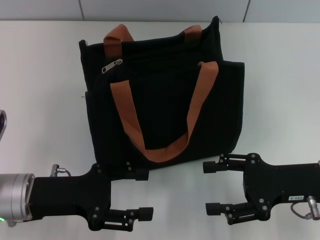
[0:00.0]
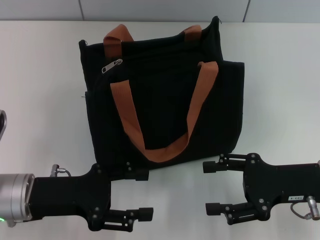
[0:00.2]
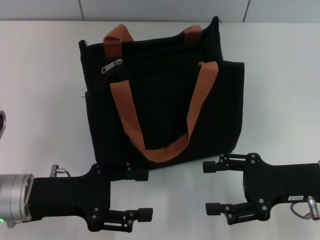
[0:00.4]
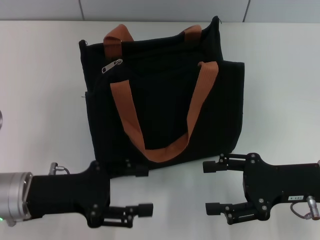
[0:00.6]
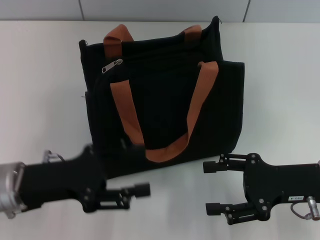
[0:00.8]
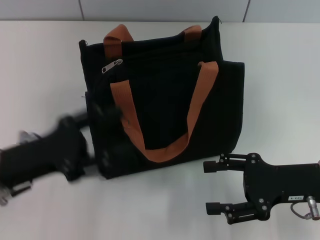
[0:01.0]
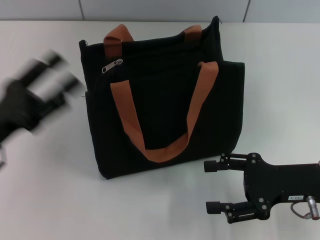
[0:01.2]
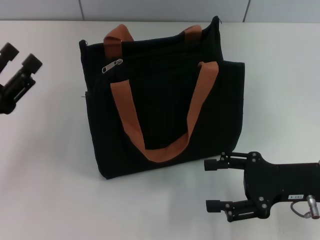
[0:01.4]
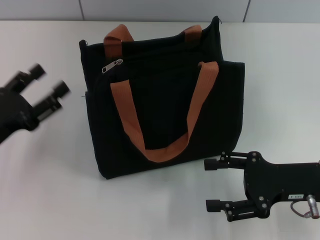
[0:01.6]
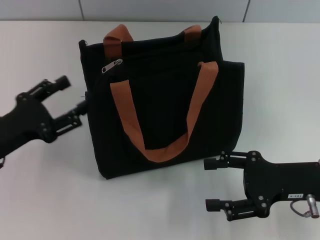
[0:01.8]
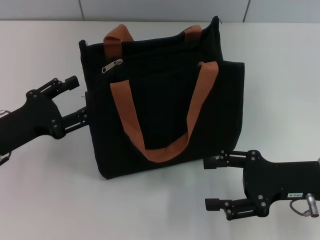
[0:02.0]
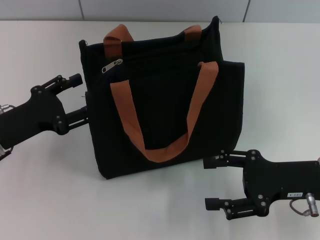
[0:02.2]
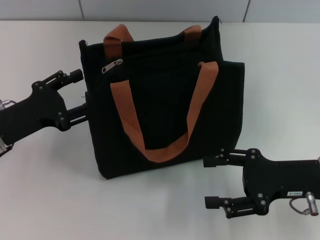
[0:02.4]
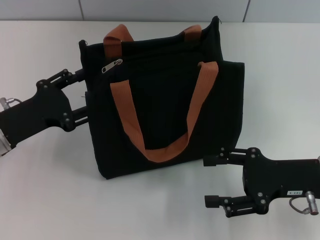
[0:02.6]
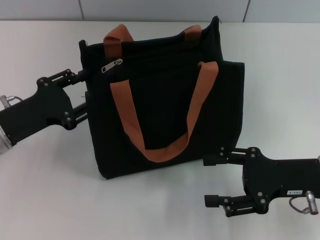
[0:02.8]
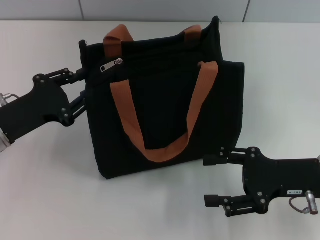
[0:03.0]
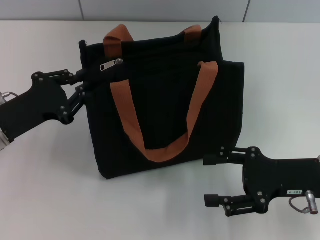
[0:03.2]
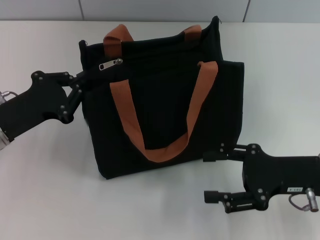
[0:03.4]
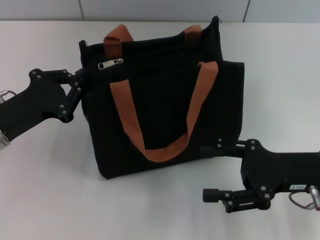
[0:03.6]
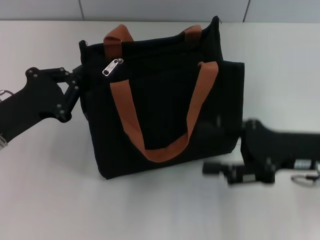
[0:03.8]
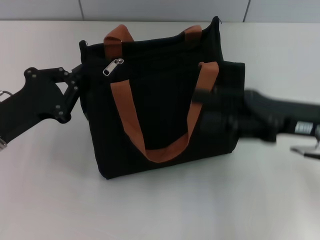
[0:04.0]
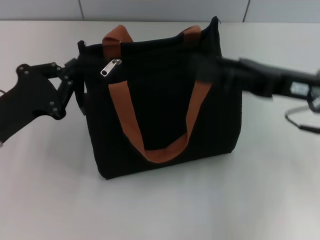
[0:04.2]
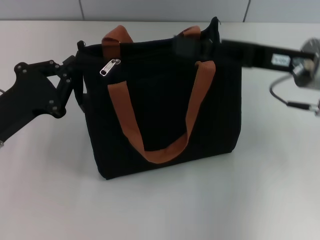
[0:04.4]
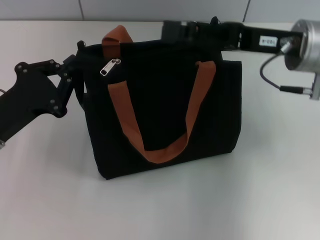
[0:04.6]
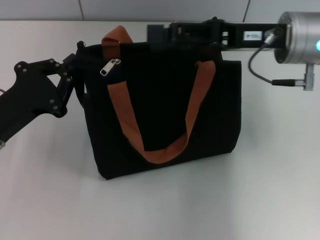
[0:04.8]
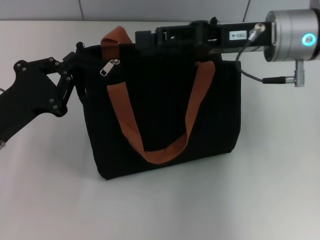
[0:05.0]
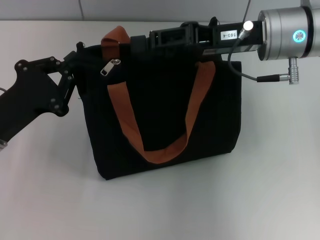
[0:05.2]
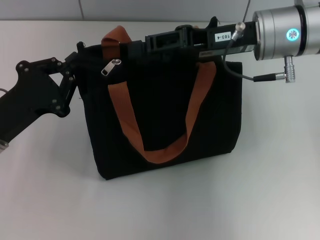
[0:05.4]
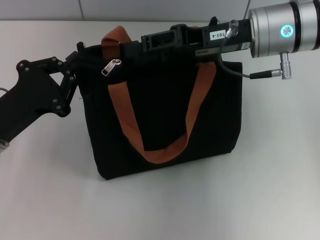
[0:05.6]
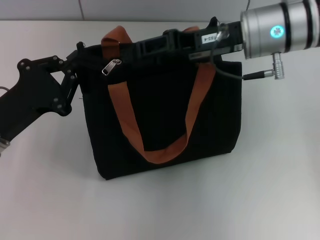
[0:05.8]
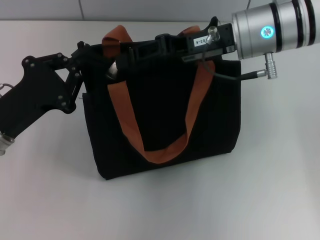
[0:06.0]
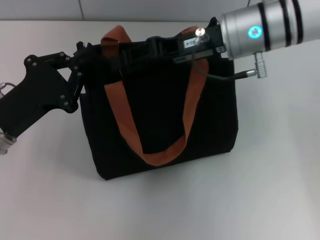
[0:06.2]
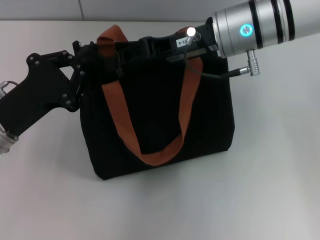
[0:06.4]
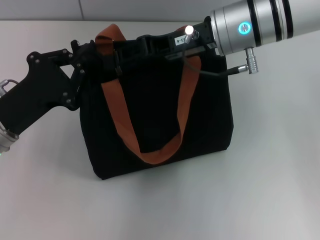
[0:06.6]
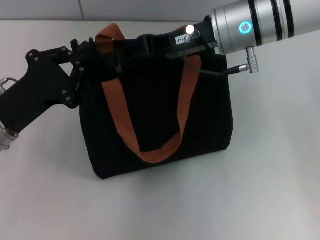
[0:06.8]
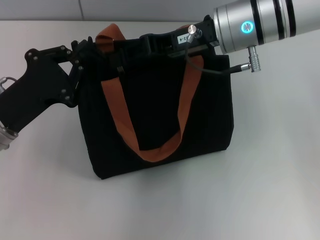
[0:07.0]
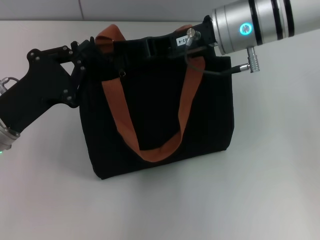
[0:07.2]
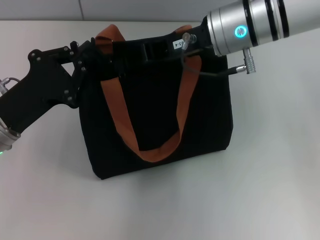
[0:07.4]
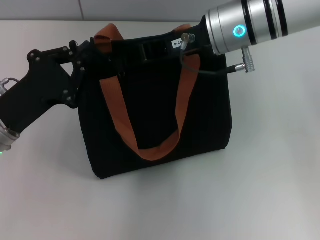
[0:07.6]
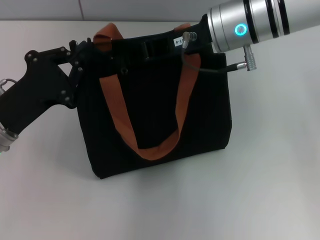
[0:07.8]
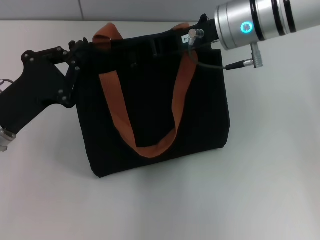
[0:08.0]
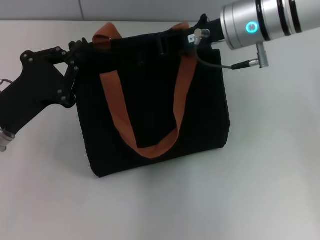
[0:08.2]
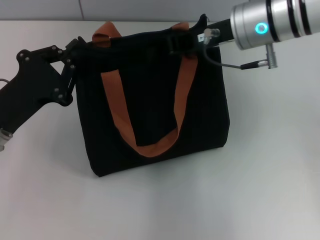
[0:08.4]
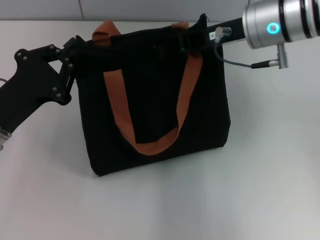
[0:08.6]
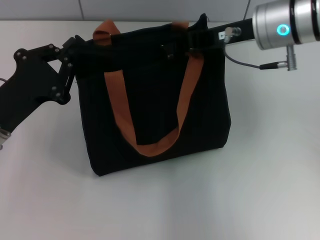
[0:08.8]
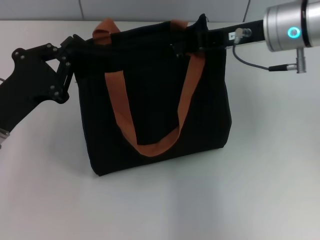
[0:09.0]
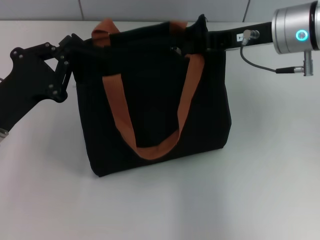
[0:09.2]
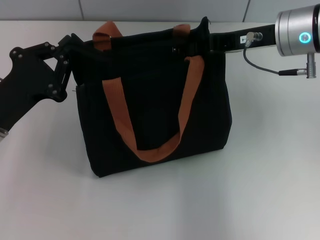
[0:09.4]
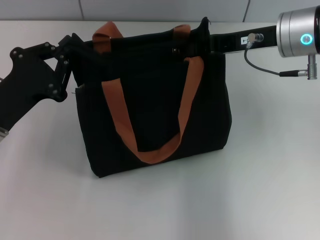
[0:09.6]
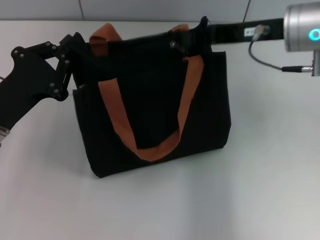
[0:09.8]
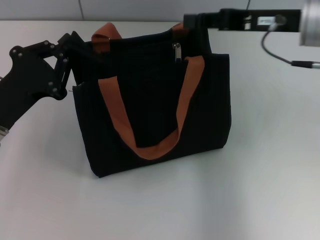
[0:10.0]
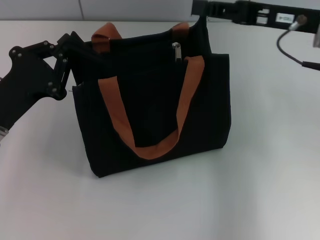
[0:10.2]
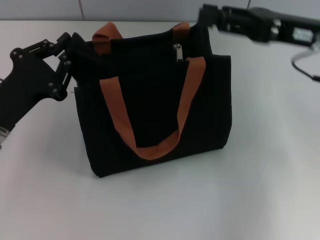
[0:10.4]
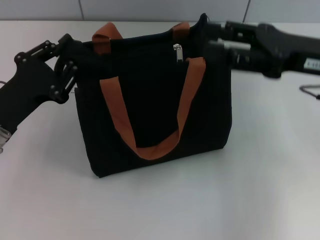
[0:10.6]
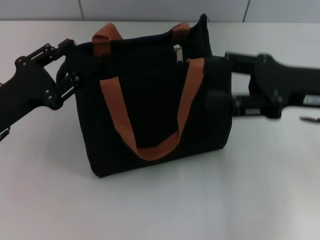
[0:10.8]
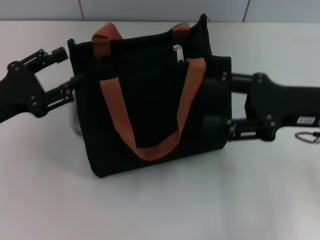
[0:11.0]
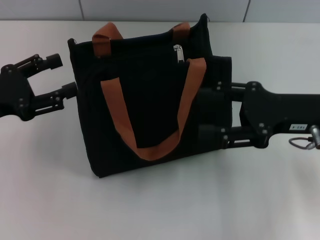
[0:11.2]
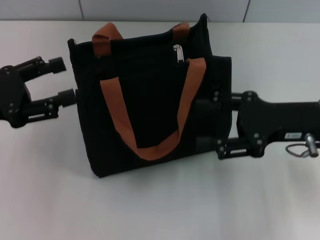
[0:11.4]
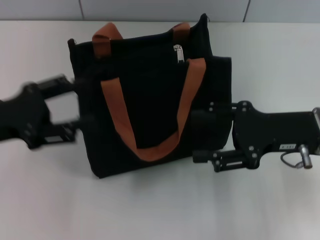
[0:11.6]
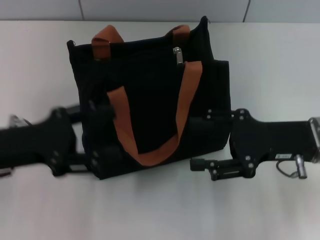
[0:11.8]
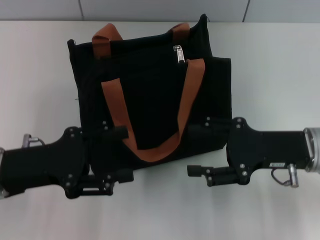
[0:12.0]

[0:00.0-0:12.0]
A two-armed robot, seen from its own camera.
Step, 0:00.0 to 0:10.4: Pull up the zipper with your right hand.
Step, 0:10.6 to 0:11.6: Grab the zipper with your left hand.
0:00.0 to 0:01.6: The left gripper goes roughly 5 cm to the left.
0:01.6 to 0:03.0: The left gripper changes place by some 5 cm, and closes up.
0:03.0 to 0:04.4: The right gripper is displaced upward and forward by some 15 cm, while the left gripper closes.
0:04.4 to 0:06.0: The right gripper goes approximately 10 cm to the left.
0:06.0 to 0:07.6: The right gripper closes.
0:07.6 to 0:09.0: The right gripper moves to the right, about 5 cm.
0:09.0 to 0:10.4: The right gripper is displaced to the right and backward by approximately 10 cm, and opens up.
0:10.4 to 0:12.0: The left gripper opens up, while the right gripper shifts approximately 10 cm downward and backward, and opens its fingers.

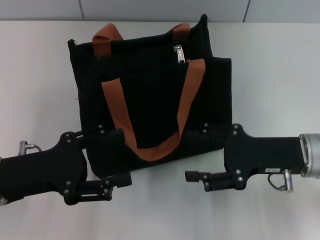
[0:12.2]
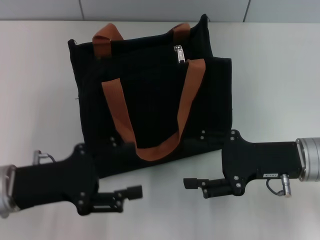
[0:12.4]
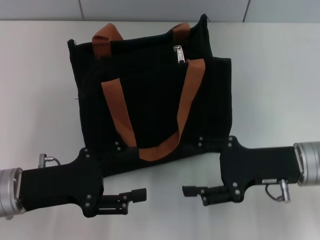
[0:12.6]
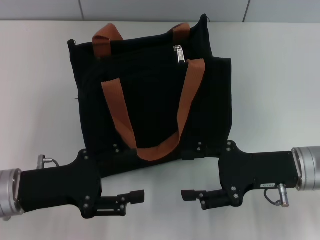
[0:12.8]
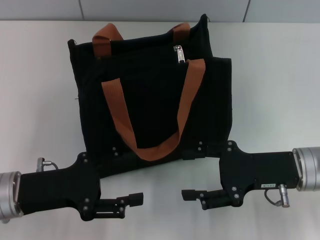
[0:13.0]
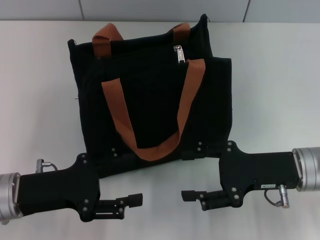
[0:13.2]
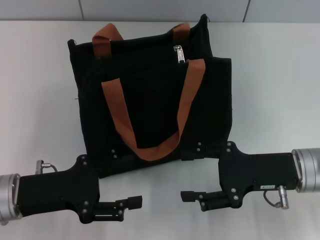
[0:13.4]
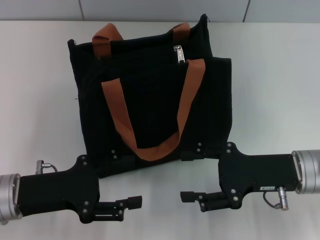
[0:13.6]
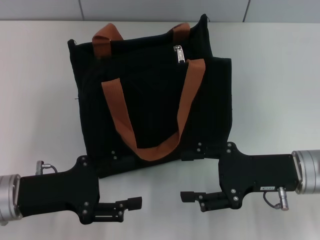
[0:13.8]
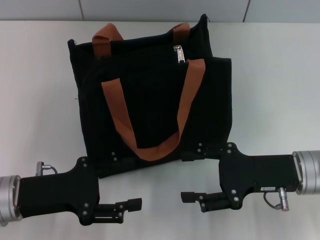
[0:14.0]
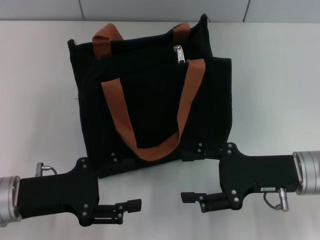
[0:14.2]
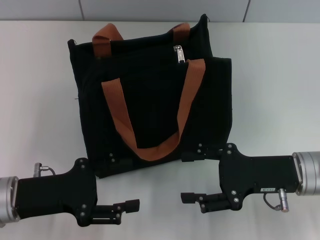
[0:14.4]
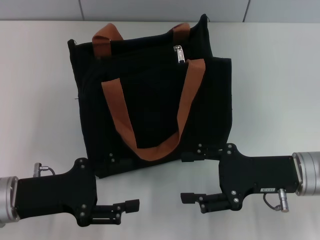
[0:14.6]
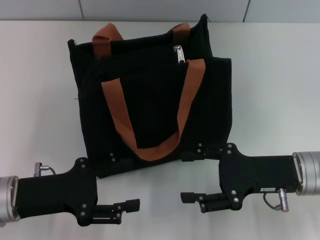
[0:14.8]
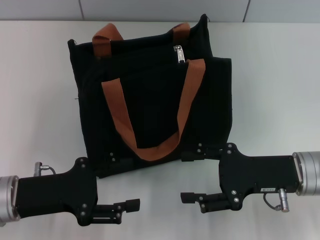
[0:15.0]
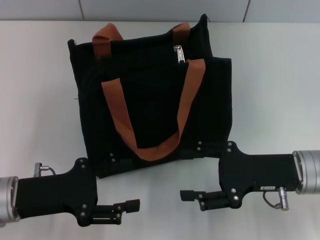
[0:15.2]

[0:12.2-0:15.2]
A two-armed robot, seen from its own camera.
0:12.2 to 0:13.8: There are only small adjustments of the grippers.
0:13.8 to 0:15.2: The two grippers keep their place.

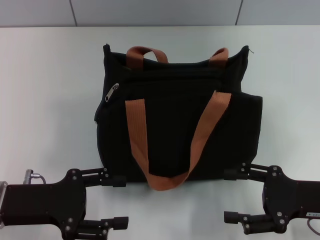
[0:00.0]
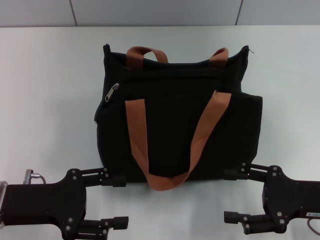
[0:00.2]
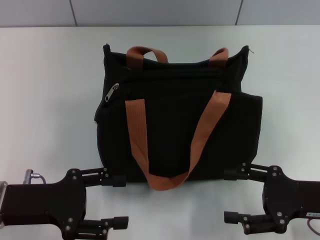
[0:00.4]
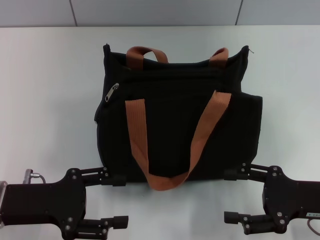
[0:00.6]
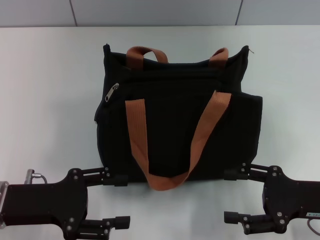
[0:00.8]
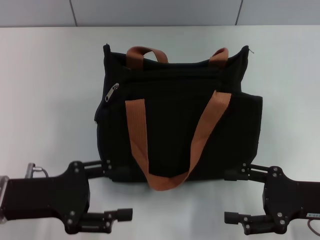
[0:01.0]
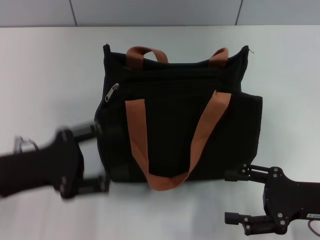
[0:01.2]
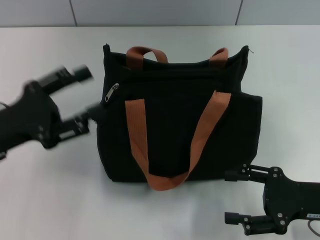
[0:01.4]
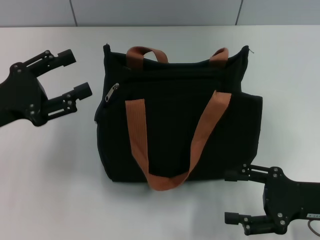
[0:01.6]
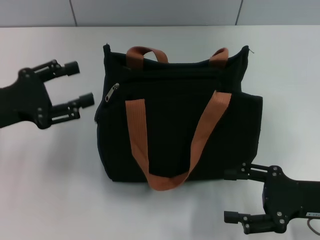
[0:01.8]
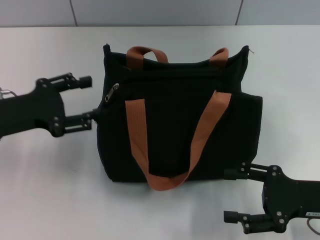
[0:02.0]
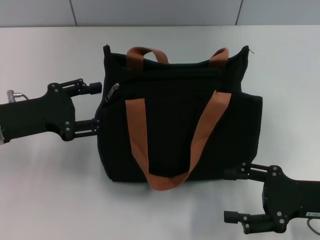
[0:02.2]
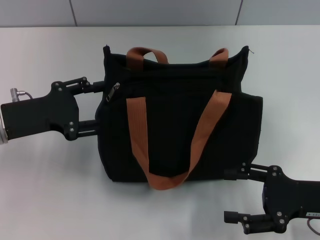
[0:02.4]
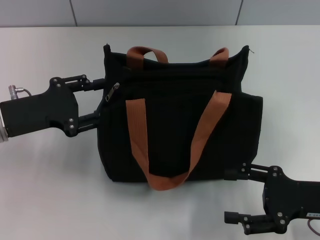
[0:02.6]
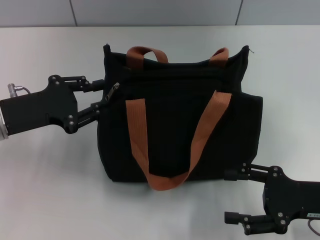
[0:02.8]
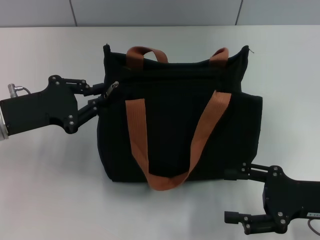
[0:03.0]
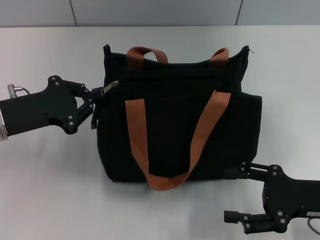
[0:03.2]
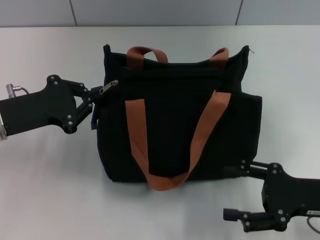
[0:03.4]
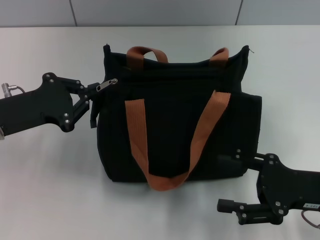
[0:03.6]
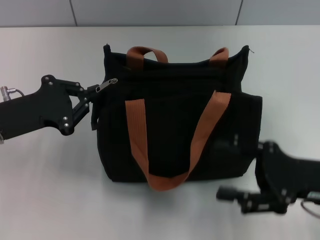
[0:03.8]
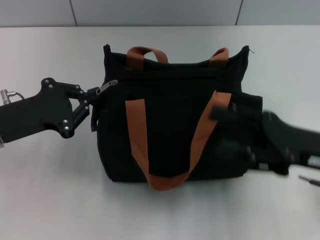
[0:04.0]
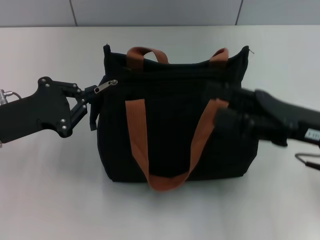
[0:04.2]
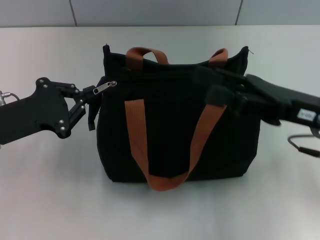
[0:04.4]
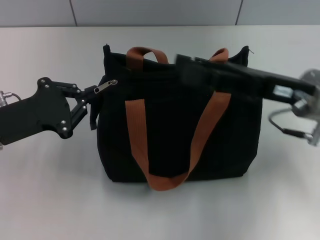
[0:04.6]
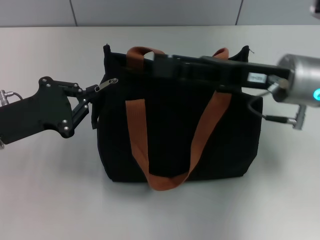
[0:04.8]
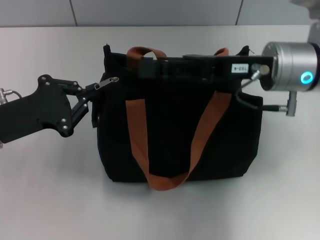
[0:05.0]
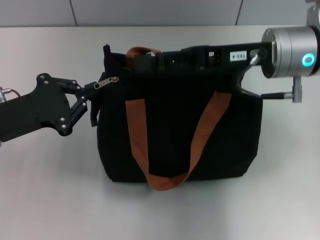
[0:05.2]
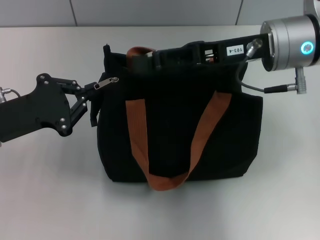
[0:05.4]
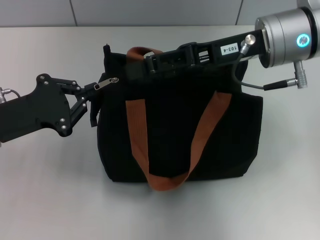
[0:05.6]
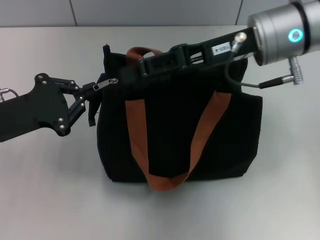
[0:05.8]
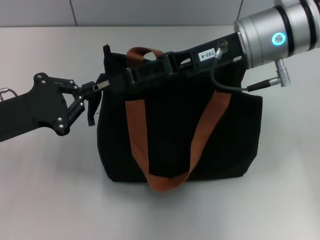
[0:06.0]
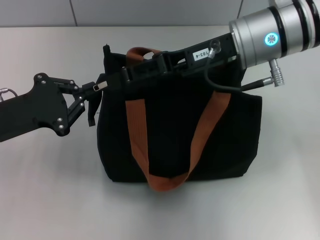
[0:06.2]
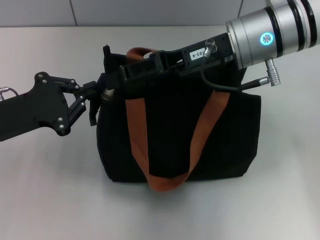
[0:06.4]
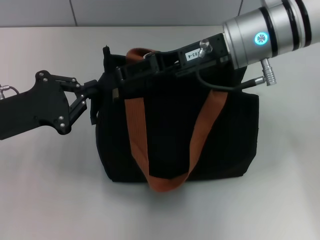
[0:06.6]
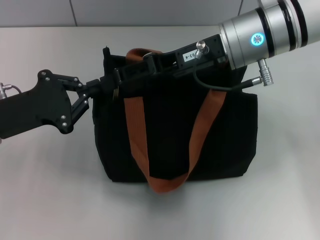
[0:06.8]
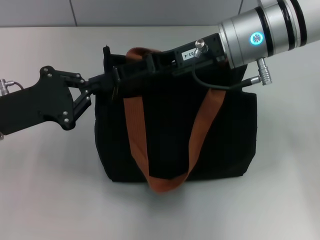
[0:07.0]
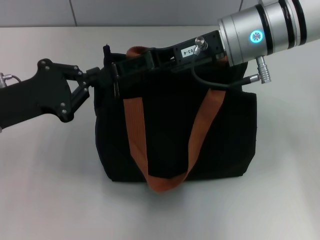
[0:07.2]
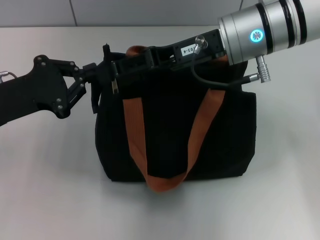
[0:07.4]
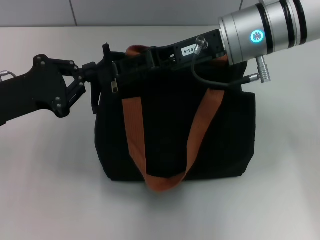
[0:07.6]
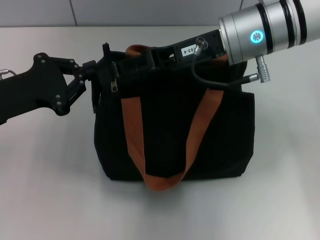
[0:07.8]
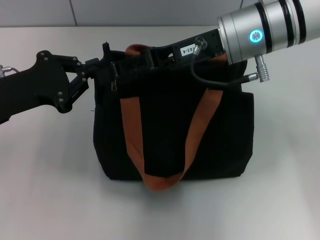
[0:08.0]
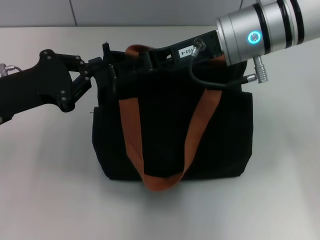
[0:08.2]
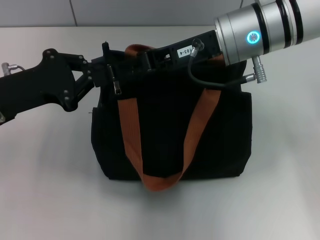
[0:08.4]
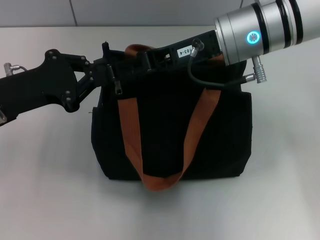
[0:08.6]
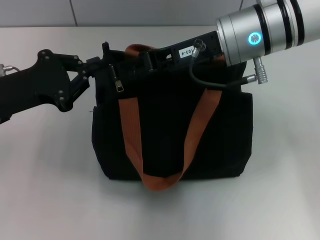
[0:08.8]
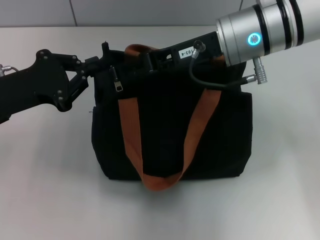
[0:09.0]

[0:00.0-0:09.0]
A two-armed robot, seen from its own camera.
0:00.0 to 0:01.6: The left gripper goes approximately 5 cm forward.
0:01.6 to 0:03.0: The left gripper closes.
0:03.0 to 0:04.4: The right gripper heads upward, forward and to the left, covering some 10 cm. The left gripper closes.
0:04.4 to 0:06.0: The right gripper heads to the left, forward and upward, covering about 15 cm.
0:06.0 to 0:09.0: There are only small adjustments of the grippers.
